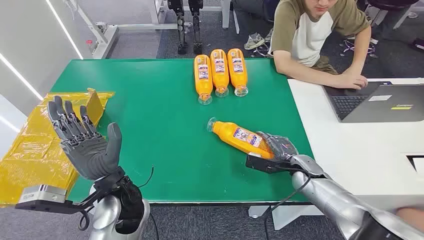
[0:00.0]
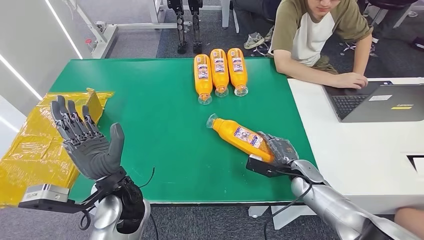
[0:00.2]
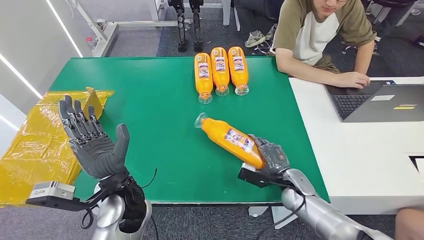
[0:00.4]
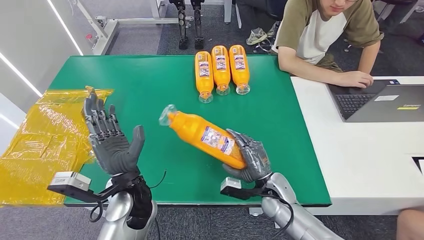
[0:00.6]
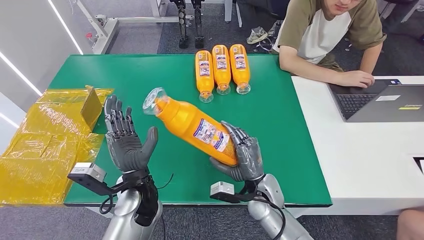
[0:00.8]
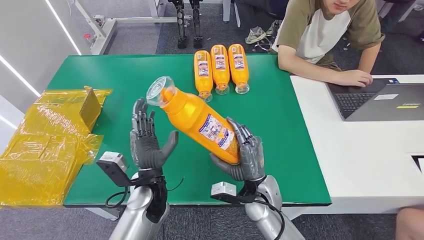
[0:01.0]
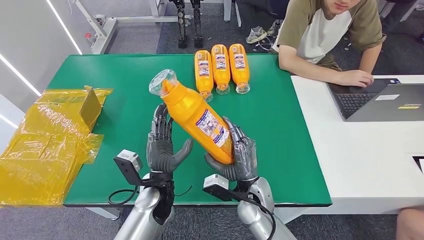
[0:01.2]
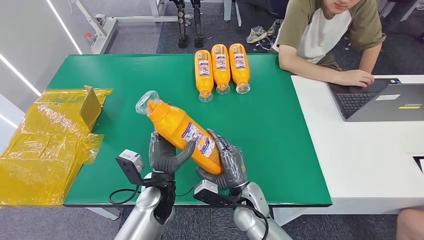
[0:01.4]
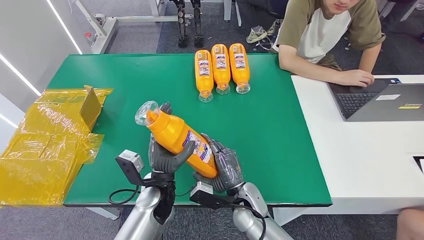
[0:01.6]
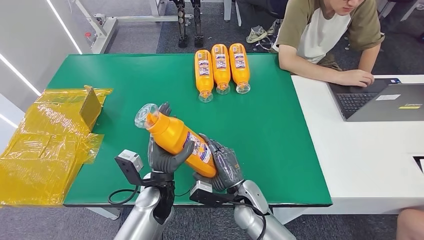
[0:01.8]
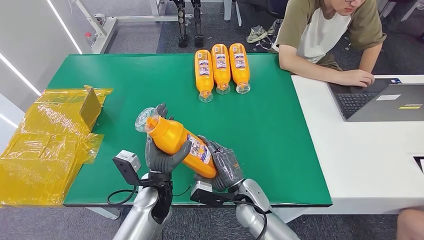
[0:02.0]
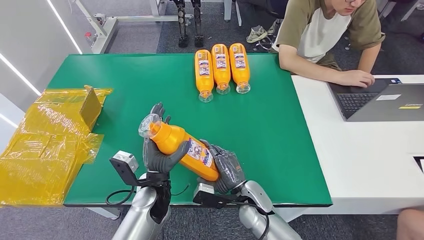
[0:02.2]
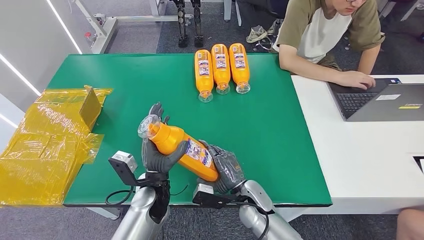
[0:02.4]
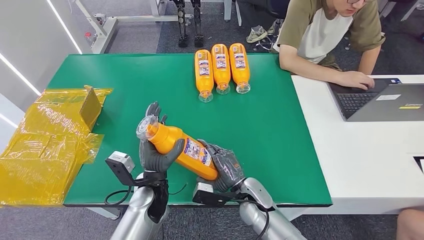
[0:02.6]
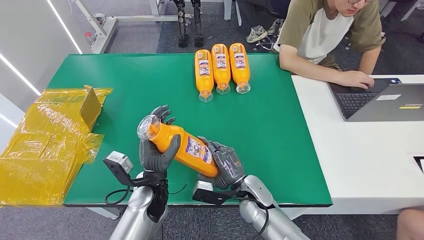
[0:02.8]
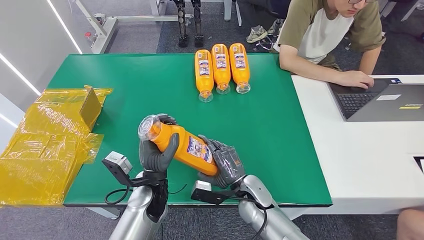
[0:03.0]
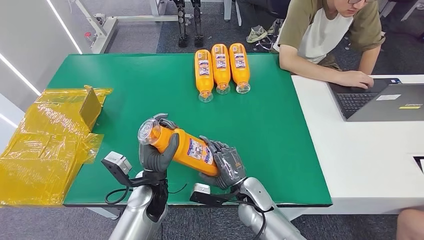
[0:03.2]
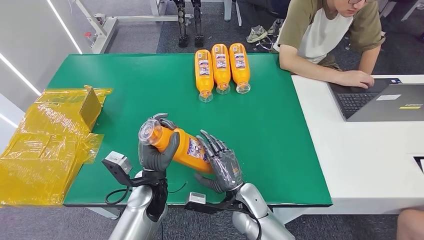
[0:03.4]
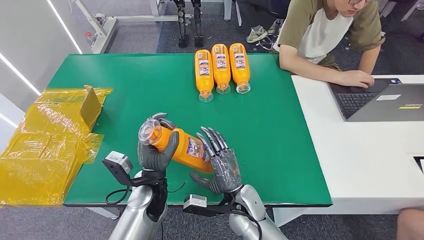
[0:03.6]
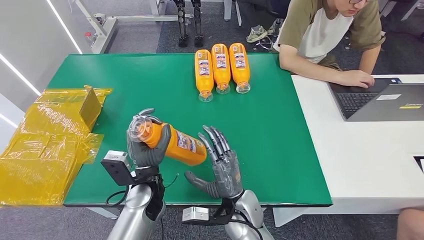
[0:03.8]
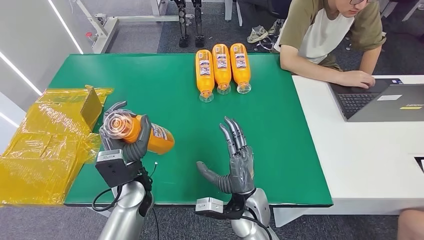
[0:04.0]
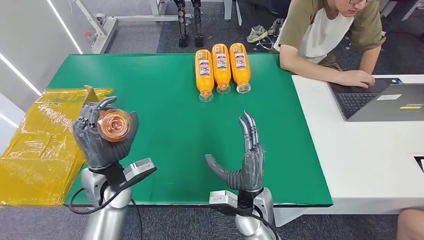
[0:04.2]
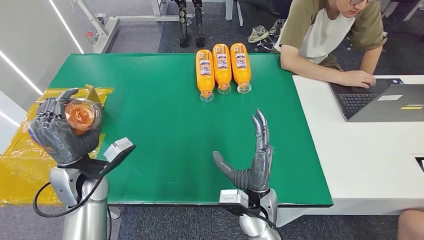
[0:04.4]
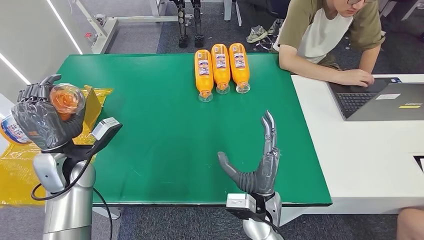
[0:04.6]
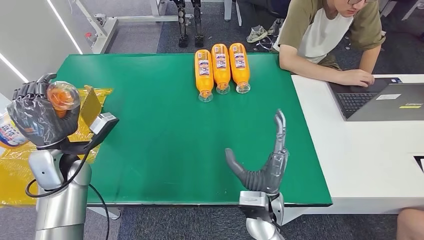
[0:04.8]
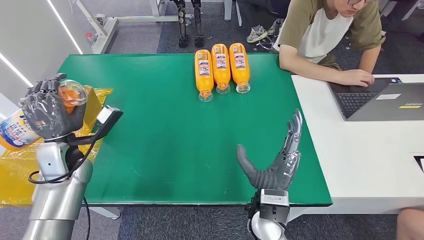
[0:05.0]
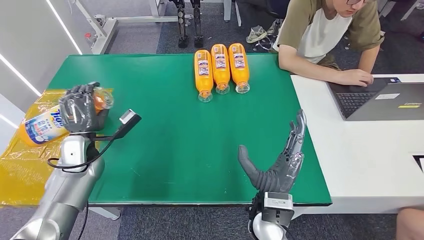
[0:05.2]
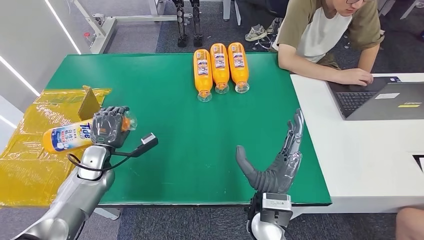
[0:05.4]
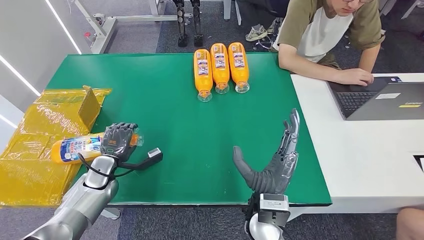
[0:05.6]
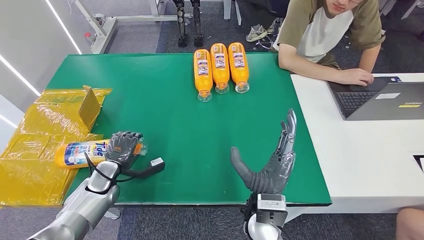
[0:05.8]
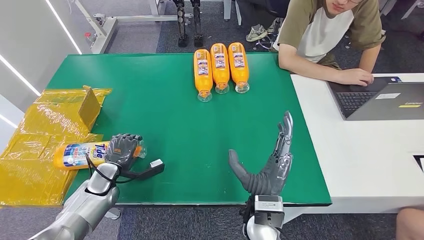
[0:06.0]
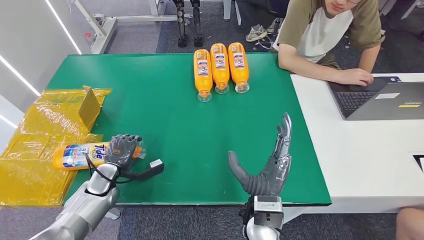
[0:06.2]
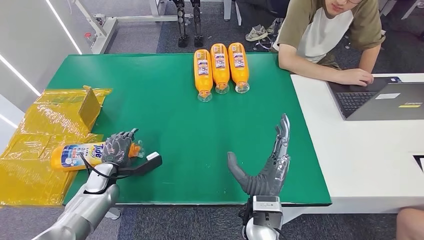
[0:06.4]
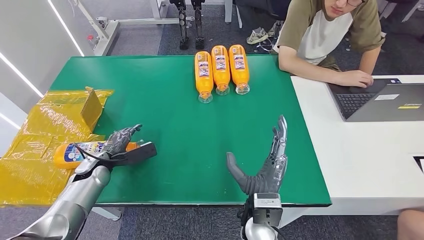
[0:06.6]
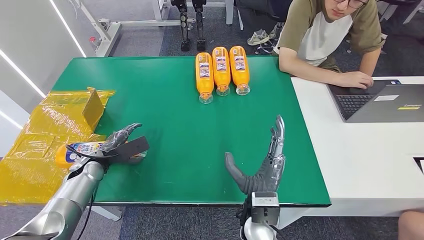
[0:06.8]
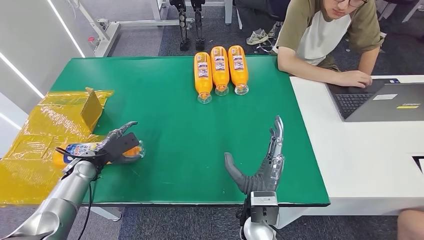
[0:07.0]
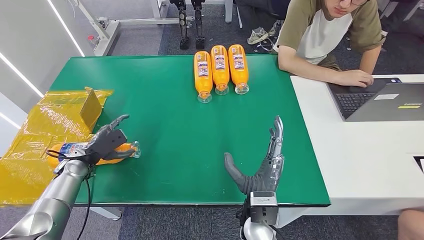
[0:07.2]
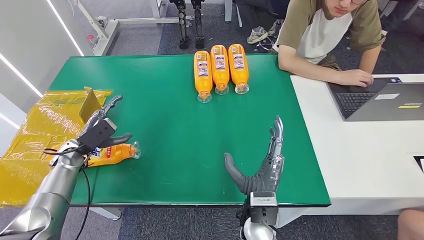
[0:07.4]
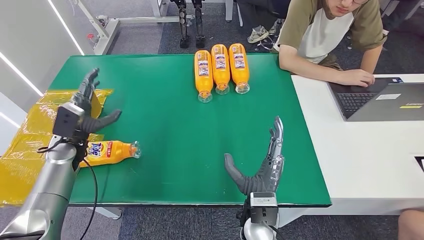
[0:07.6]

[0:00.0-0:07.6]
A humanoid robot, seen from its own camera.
Step, 0:00.0 to 0:02.0: Pick up the bottle from the table.
Step, 0:02.4 to 0:07.6: Turn the bottle to the front side.
0:01.6 to 0:03.0: The hands stay close to where they were, moving slightly.
0:03.0 to 0:04.6: The left hand travels to the left, upward and forward by roughly 20 cm; the right hand heads upward and backward, covering about 10 cm.
0:04.6 to 0:06.0: The left hand goes some 15 cm downward.
0:06.0 to 0:07.6: The left hand shifts roughly 10 cm upward and forward.
